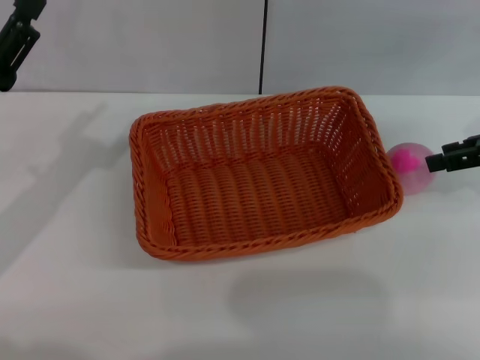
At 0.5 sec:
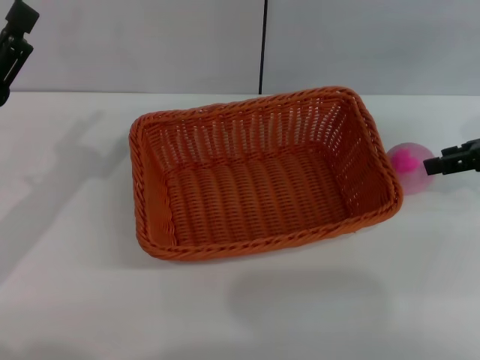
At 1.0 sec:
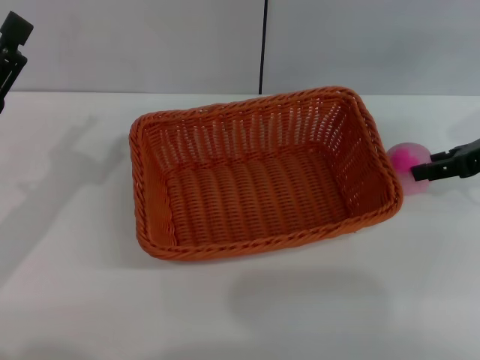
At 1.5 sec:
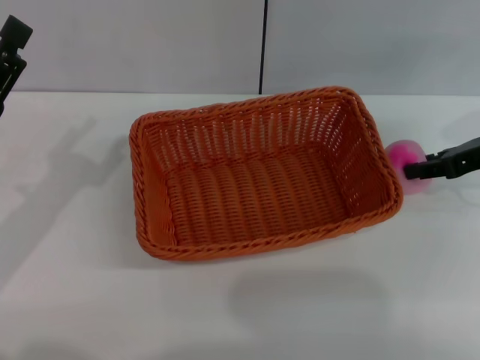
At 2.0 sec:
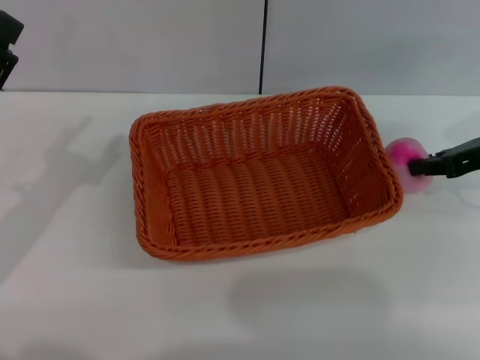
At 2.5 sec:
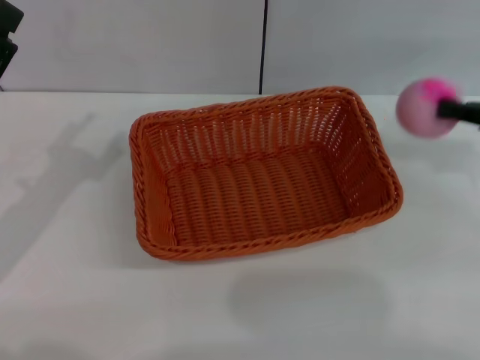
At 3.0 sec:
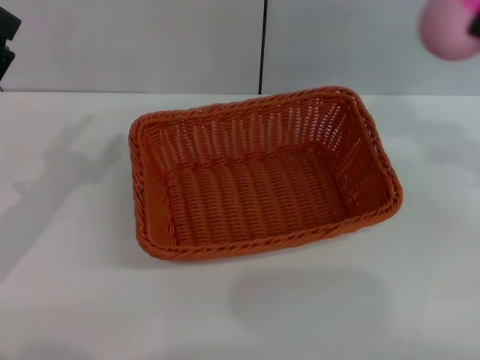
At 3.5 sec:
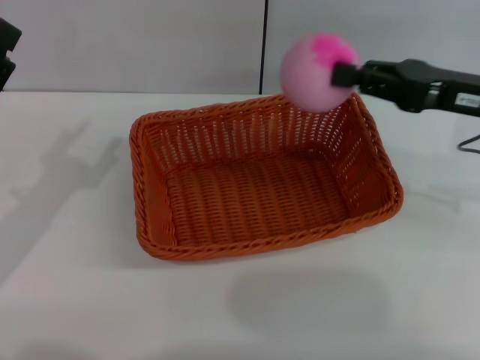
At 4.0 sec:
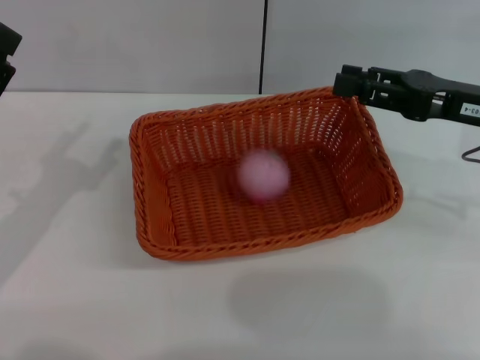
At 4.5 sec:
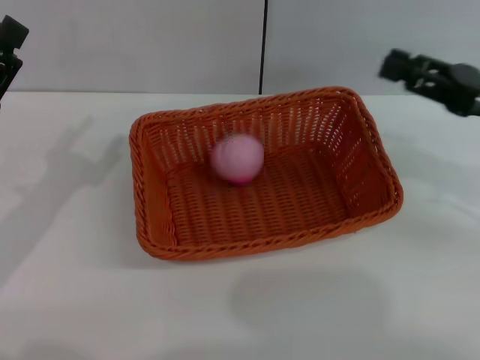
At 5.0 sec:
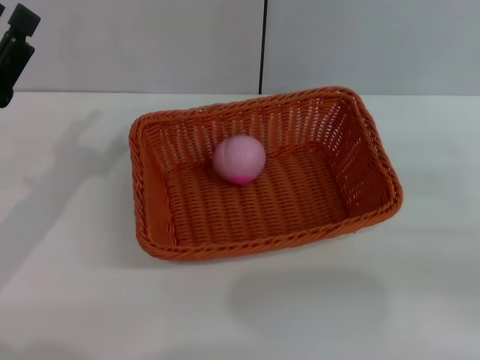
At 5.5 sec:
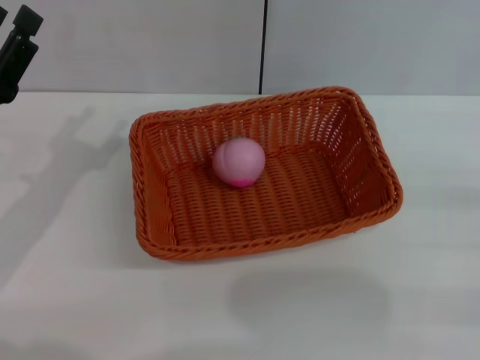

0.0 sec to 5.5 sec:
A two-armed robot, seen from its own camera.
Step, 0.0 sec to 2.5 sec: Pick up the peach with the left gripper.
0.0 sec to 2.0 sec: The right gripper closes its fingers.
2.0 sec to 3.5 sec: The right gripper shifts about 5 cm to the left.
3.5 sec to 5.5 sec: The right gripper travels to the right, backward and downward by approximately 20 cm, and opens.
